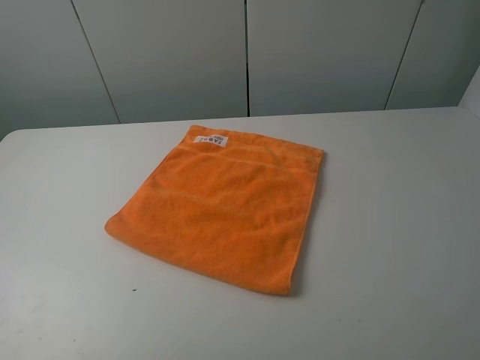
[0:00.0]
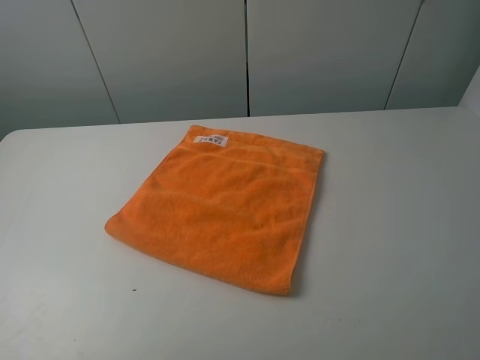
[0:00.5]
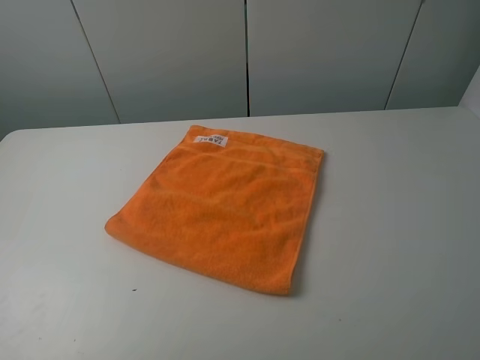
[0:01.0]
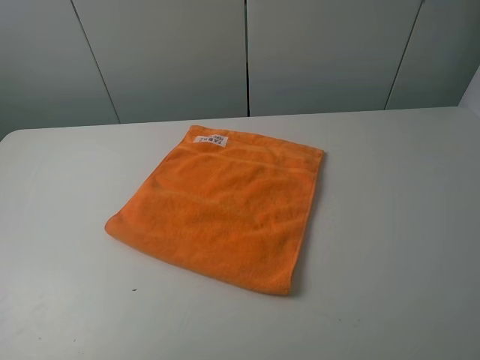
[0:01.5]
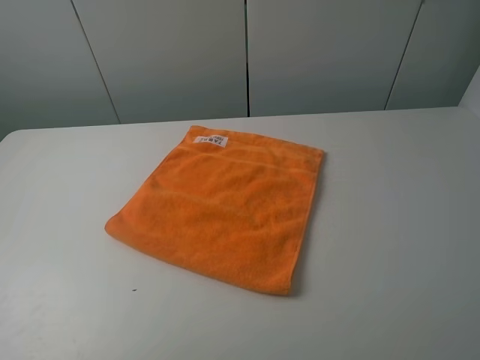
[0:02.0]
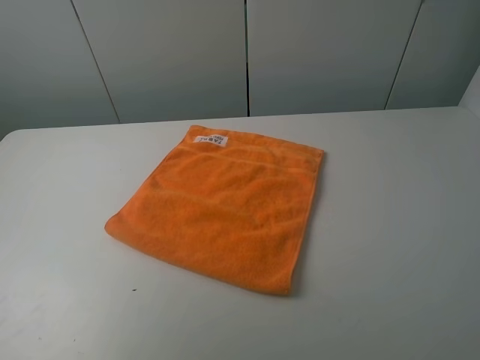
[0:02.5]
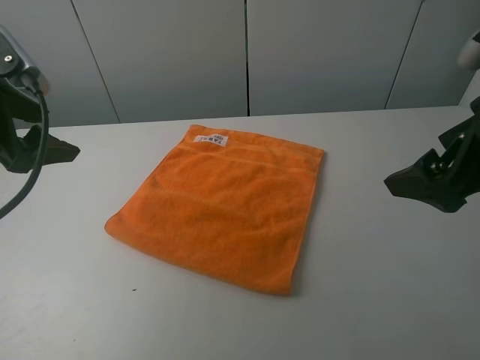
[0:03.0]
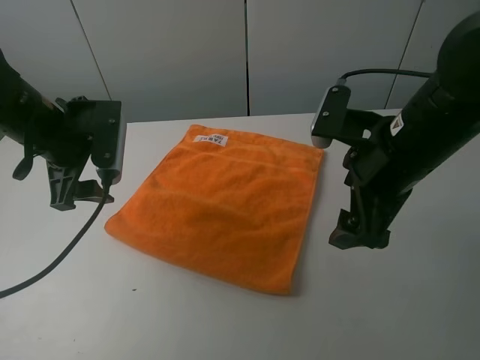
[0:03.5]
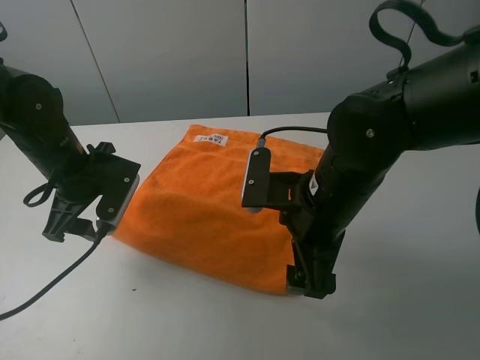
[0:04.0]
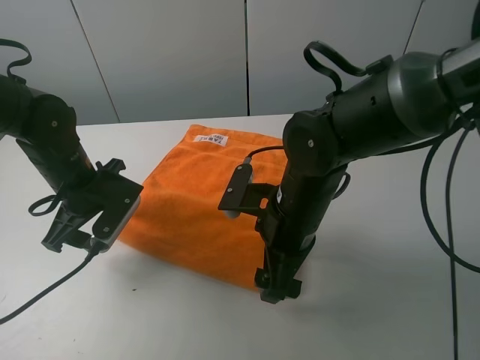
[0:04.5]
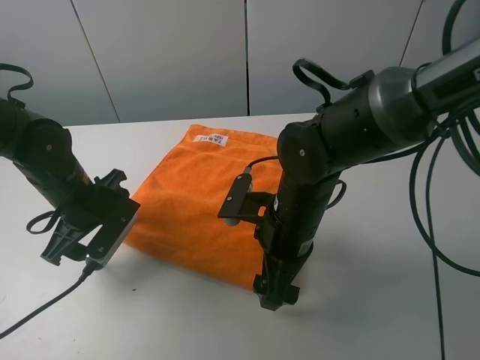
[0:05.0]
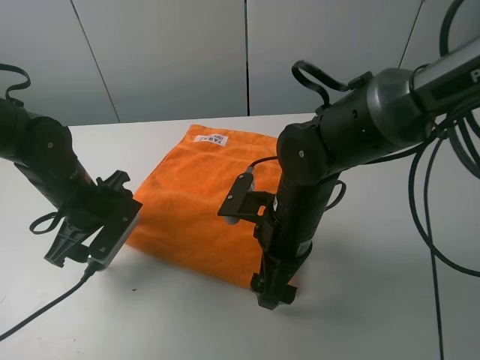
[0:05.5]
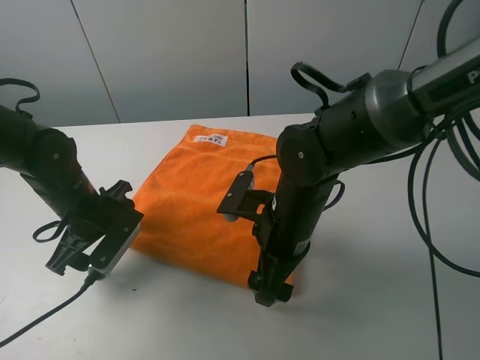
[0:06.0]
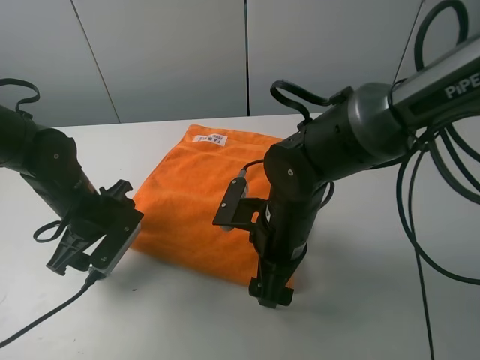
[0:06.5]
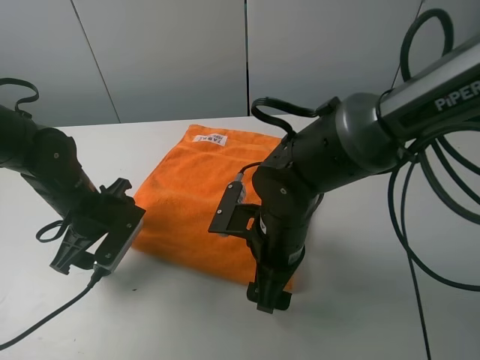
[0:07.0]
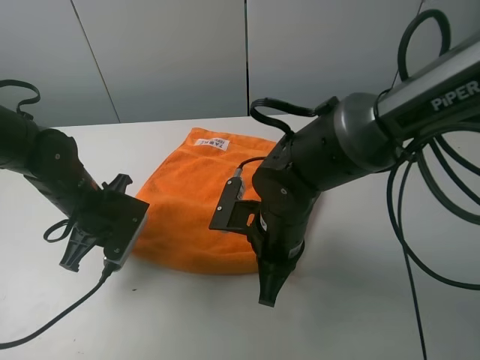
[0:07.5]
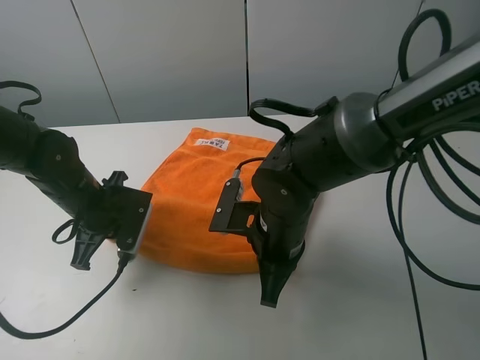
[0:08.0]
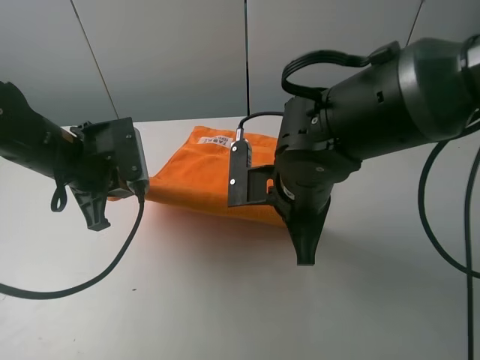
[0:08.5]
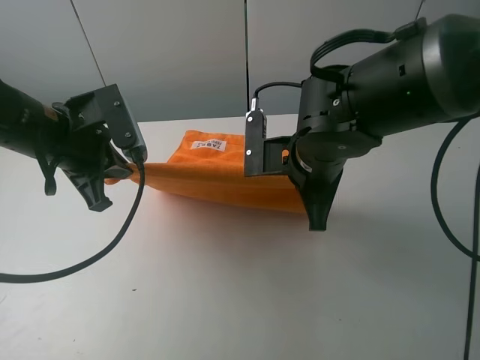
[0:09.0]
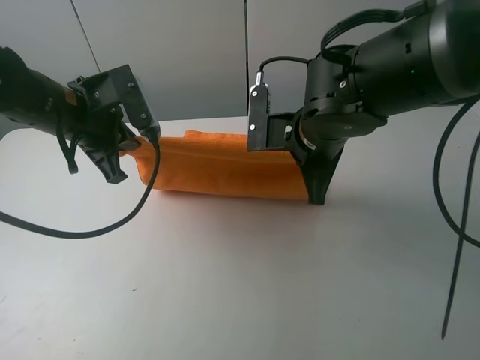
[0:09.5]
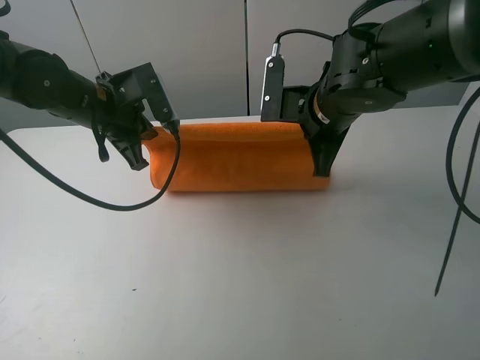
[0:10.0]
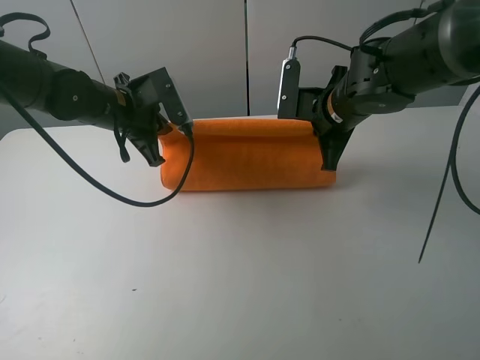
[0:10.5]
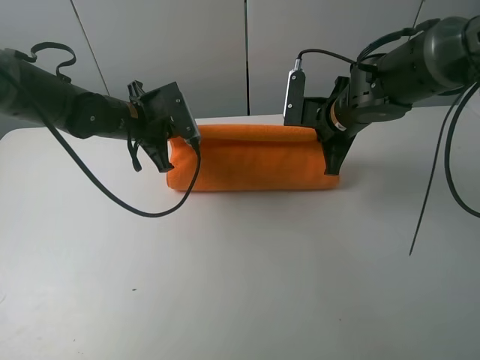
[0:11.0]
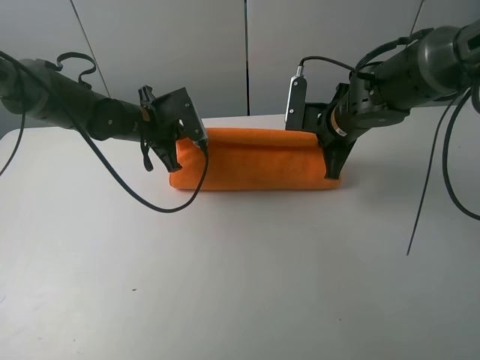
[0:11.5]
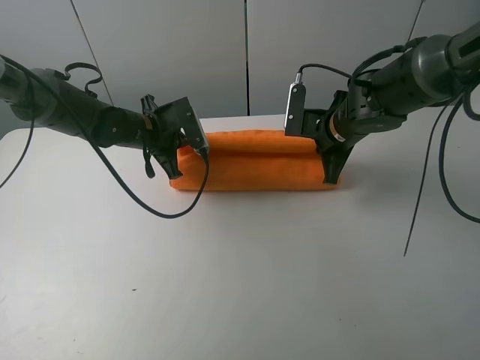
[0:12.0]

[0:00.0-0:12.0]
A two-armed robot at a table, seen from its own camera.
Task of the whole recording: fold the towels on the table.
Step, 0:00.0 to 0:07.5: Grasp the orange towel with the left gripper.
0:02.0 to 0:04.0: The right gripper travels forward, to the left and downward by roughly 30 cm; the left gripper goes roughly 30 cm forward and downward.
0:04.0 to 0:06.0: The left gripper moves downward, about 5 cm. Meanwhile the right gripper shifts by about 5 cm.
0:06.0 to 0:08.0: The right gripper closes up. Meanwhile the left gripper closes.
0:08.0 to 0:10.0: The left gripper is displaced upward and forward by about 10 cm, while the right gripper moves forward, upward and to the right, roughly 15 cm.
0:10.0 to 0:12.0: The two grippers go approximately 10 cm downward and forward.

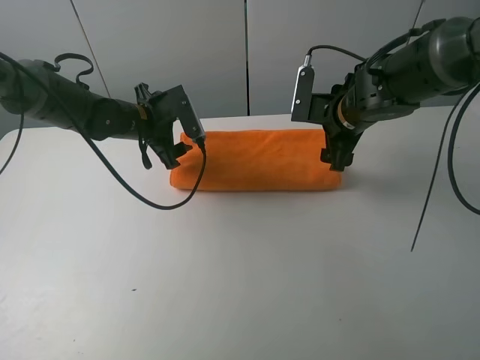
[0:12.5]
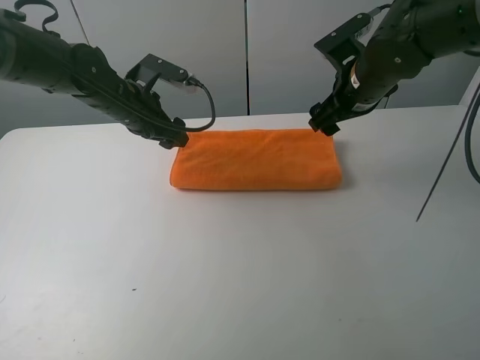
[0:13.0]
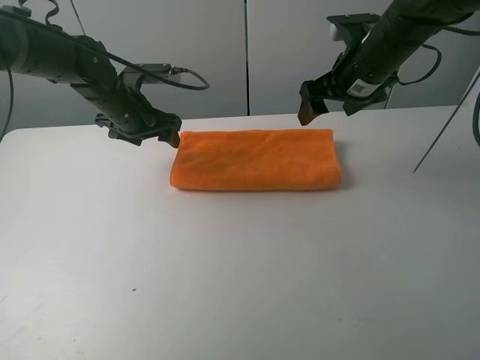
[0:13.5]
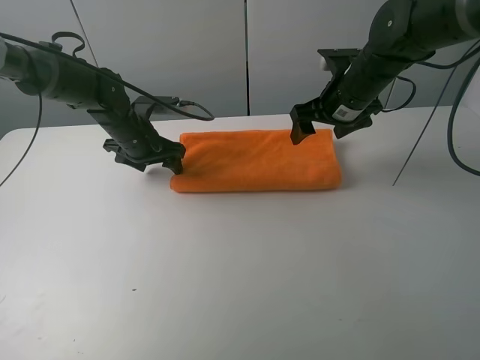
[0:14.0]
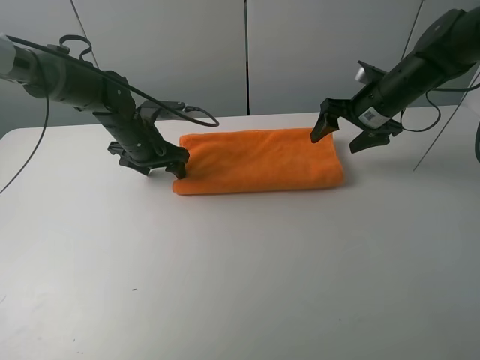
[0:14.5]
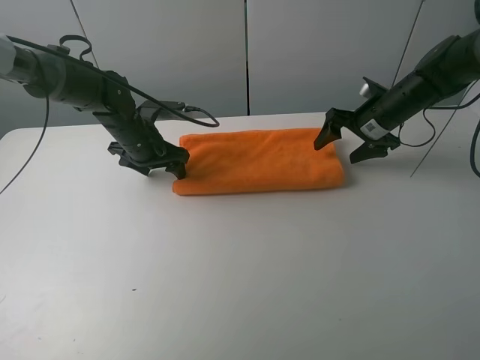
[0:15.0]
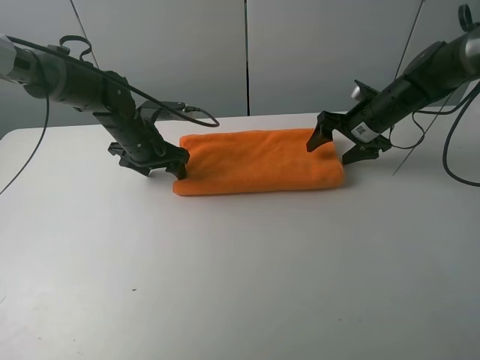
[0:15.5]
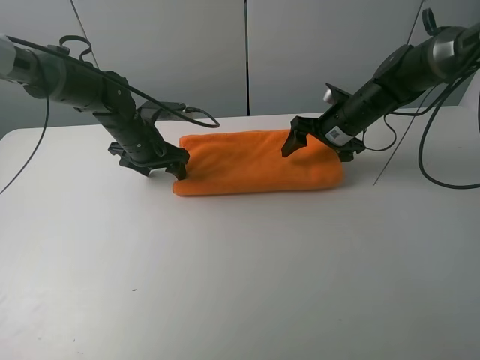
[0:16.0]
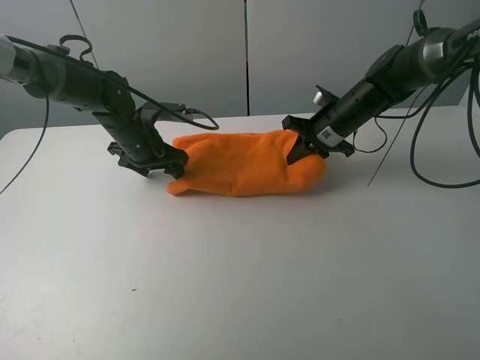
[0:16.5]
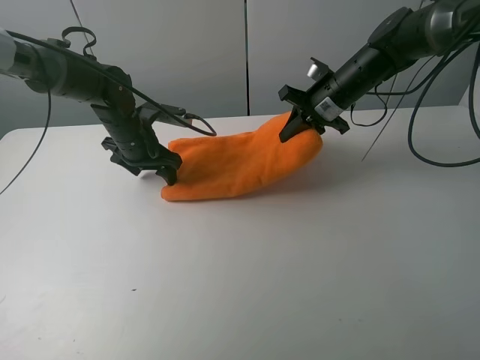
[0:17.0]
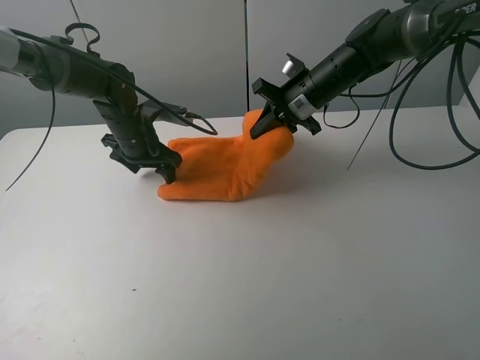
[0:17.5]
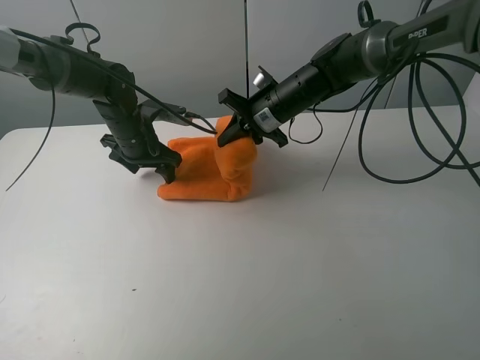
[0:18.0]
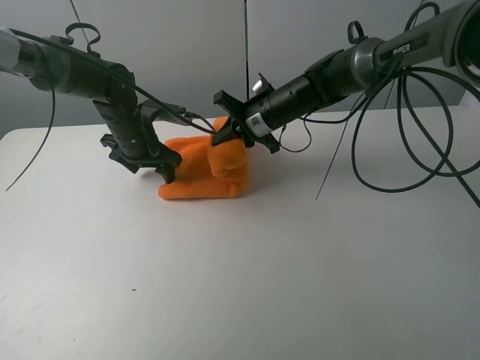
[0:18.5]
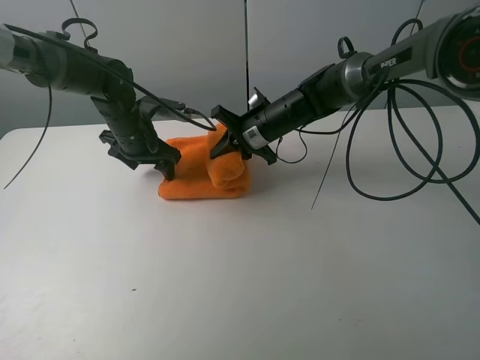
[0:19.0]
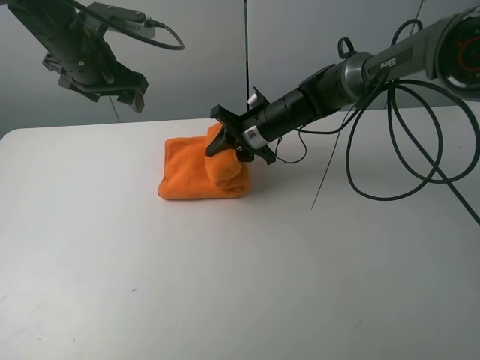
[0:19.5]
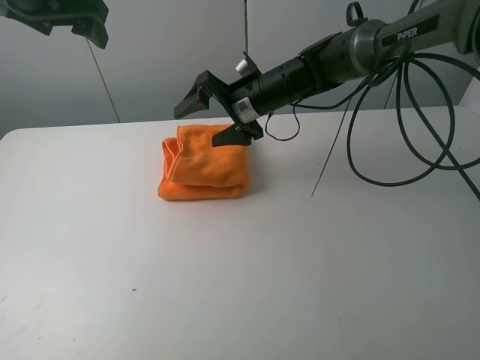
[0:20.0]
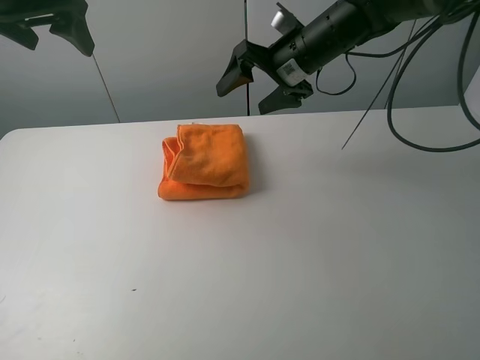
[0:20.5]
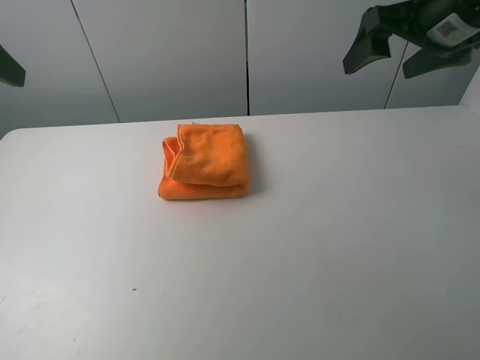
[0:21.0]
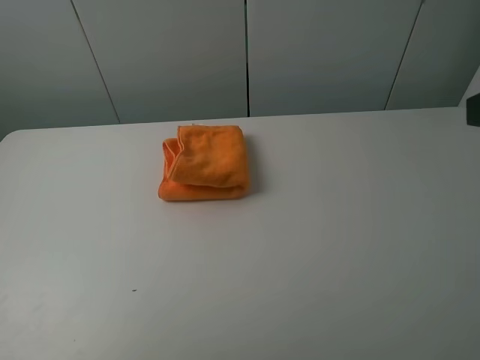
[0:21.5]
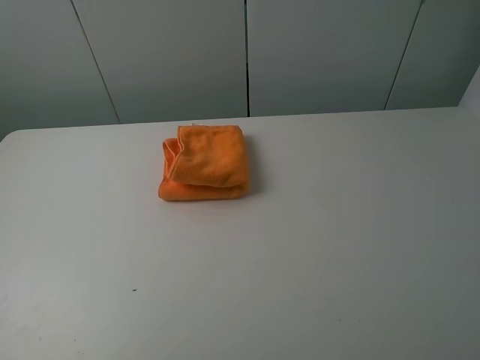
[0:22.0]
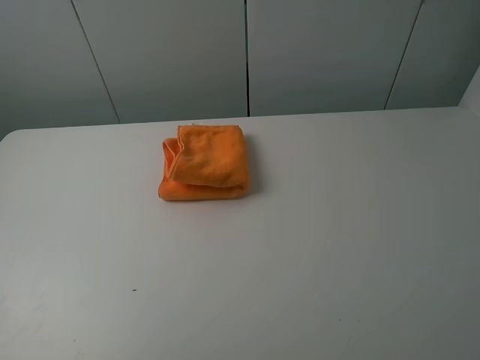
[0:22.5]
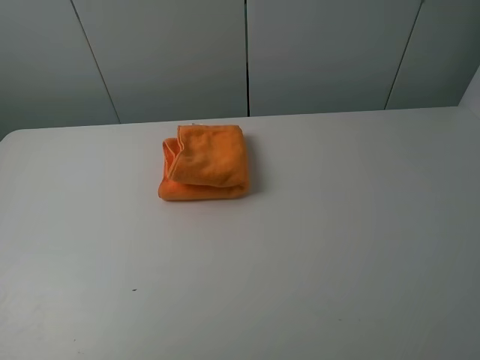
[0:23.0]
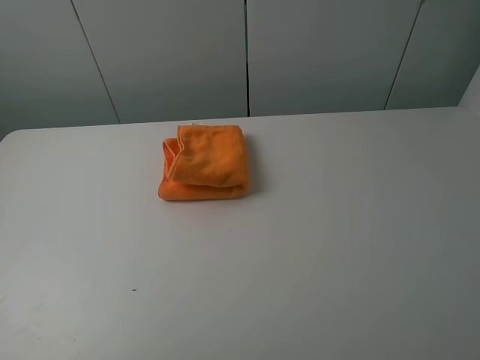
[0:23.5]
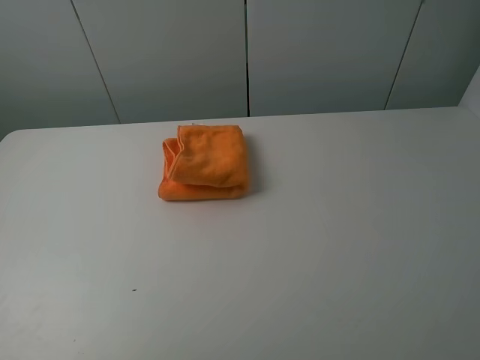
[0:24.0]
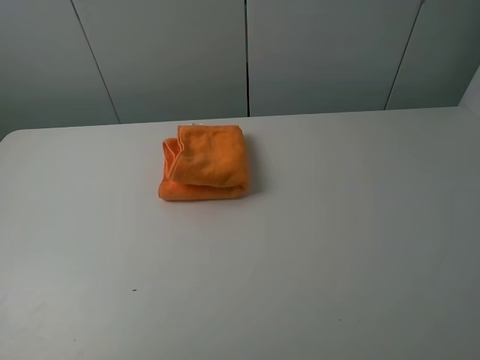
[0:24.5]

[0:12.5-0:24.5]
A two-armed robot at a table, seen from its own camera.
Task of the whole recording: fold the towels on the table.
Step, 0:13.0 to 0:14.0: Press on the orange towel with the left gripper.
Step, 0:14.5 to 0:20.5: Fold the orange towel from right to left with right gripper.
0:12.5 to 0:14.5: The right gripper shifts about 5 cm to the right, and goes upward and returns, about 5 cm each way.
0:14.5 to 0:16.5: The right gripper shifts some 5 cm to the left, and closes its fingers.
0:16.5 to 0:18.5: The right gripper travels to the left by roughly 10 cm.
0:18.5 to 0:20.5: The right gripper moves upward and to the right, roughly 15 cm, and opens. The left gripper shifts some 25 cm upward.
0:20.5 to 0:22.5: The left gripper shifts roughly 35 cm backward; the right gripper shifts approximately 40 cm backward and to the right.
